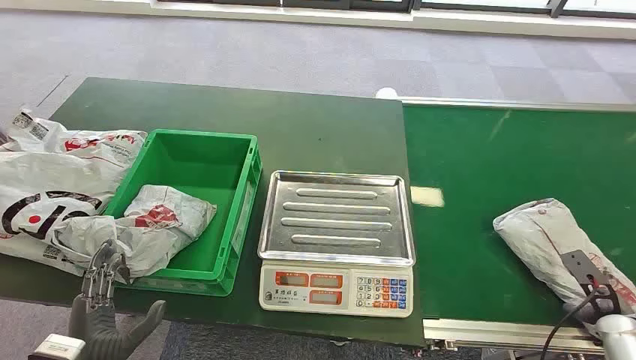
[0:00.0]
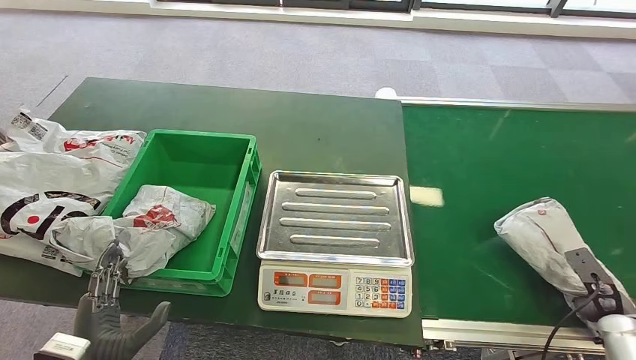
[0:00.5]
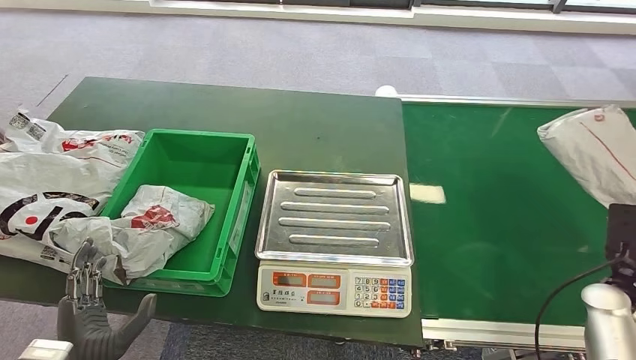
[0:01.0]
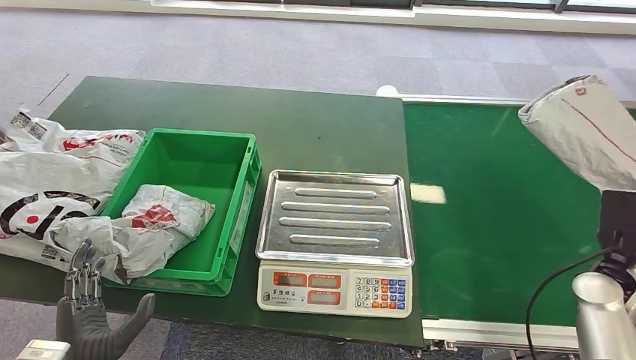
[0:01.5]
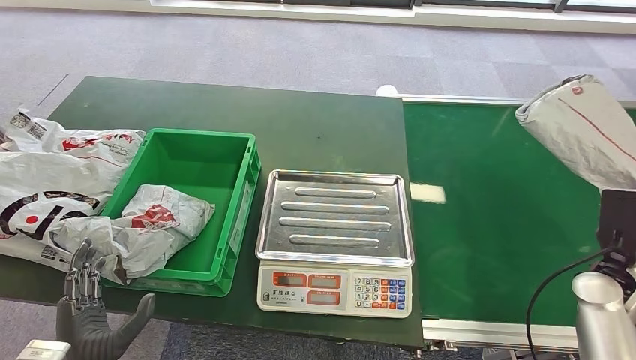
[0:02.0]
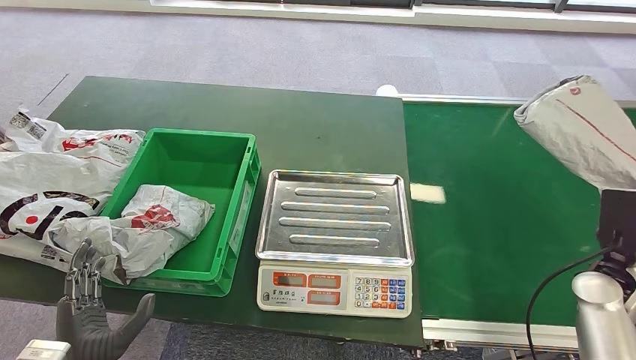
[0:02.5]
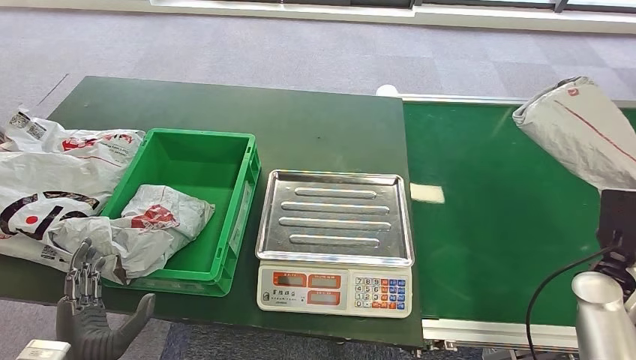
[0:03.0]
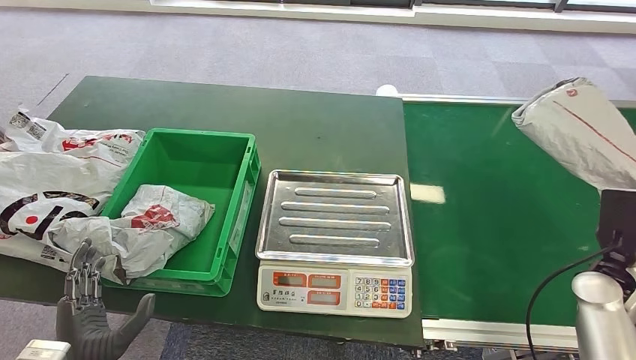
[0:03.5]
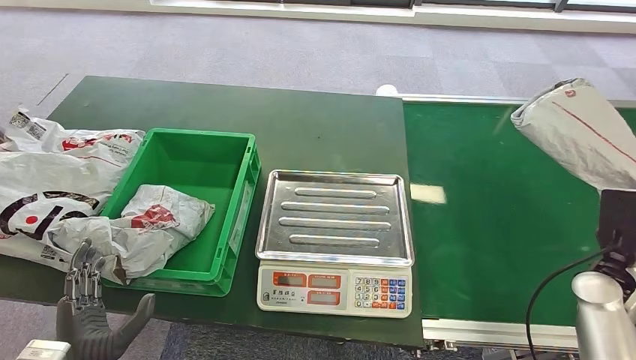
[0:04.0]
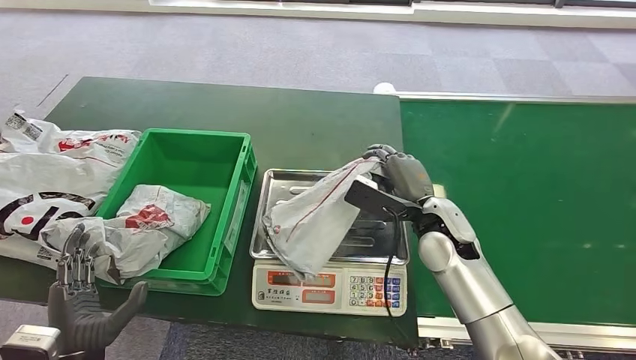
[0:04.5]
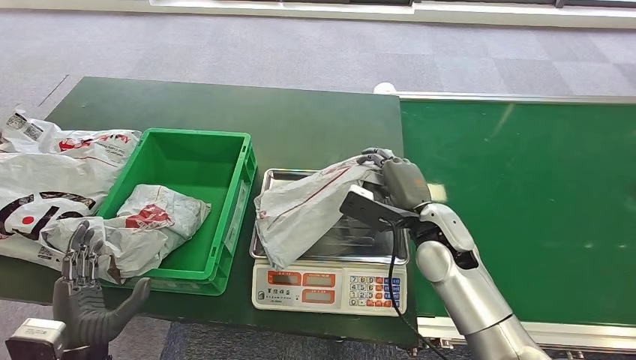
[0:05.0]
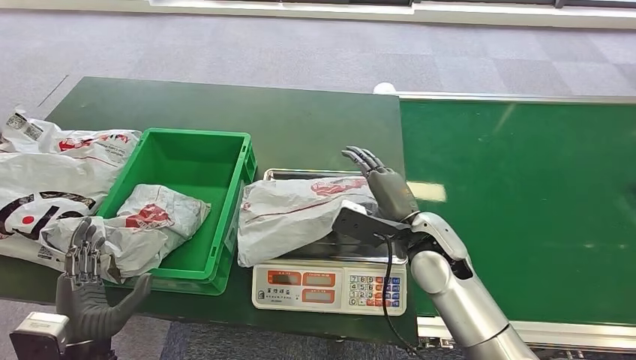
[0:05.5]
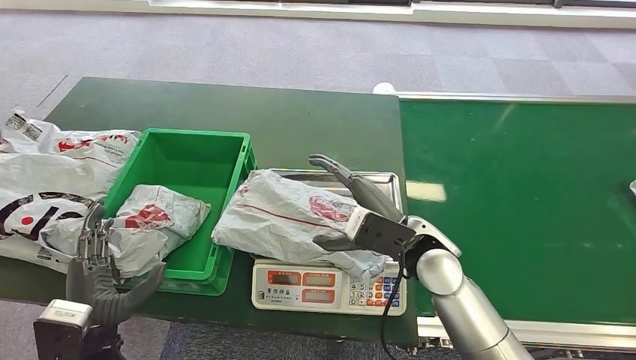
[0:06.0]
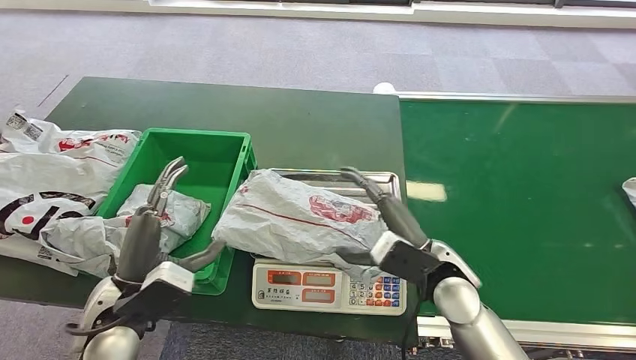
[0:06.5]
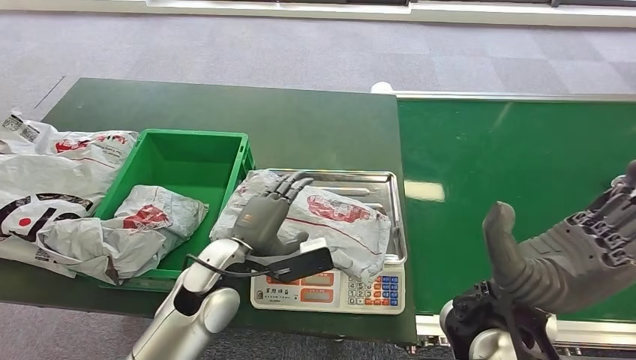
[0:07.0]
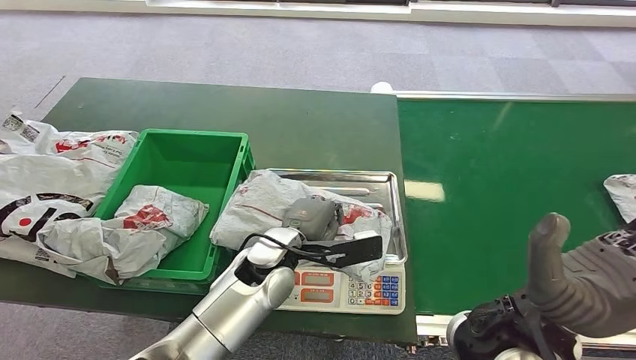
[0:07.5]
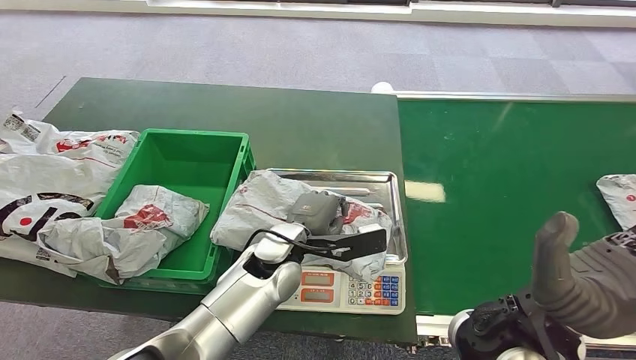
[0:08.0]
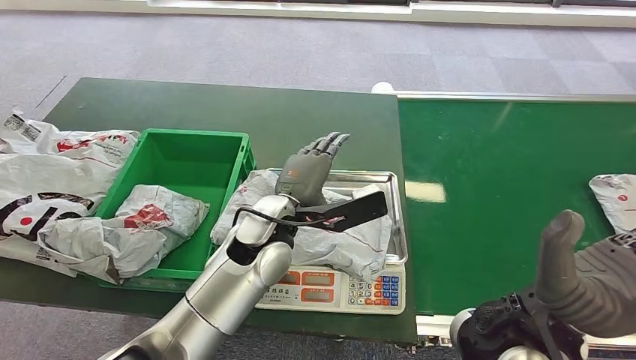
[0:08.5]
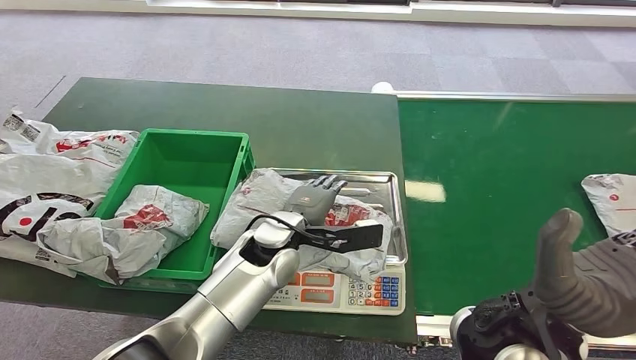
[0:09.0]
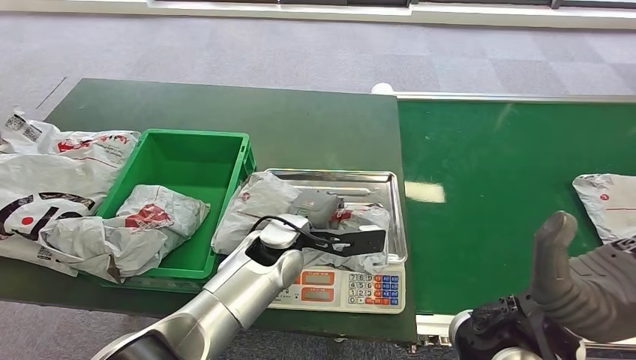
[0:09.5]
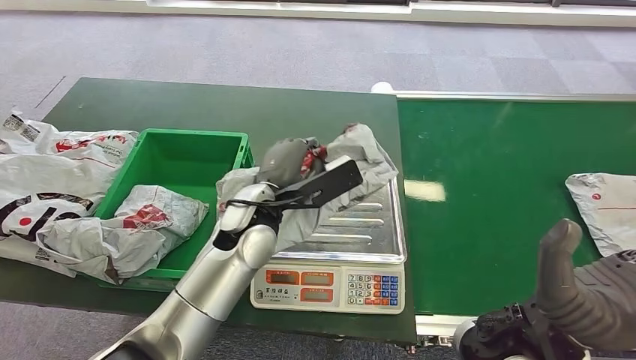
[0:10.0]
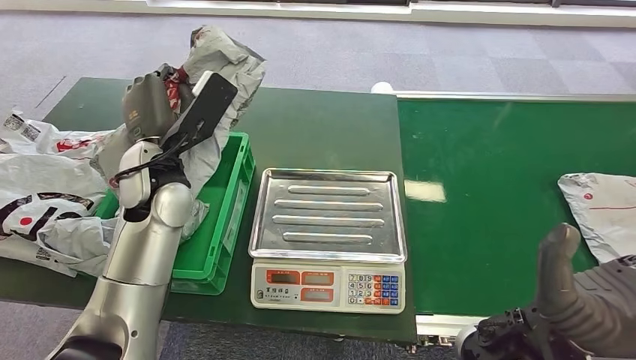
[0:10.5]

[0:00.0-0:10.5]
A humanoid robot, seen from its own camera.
Step, 0:00.0 to 0:01.0: Pick up the package from the conveyor belt.
Step, 0:01.5 to 0:06.0: Place the package onto the inbound machine.
Step, 0:06.5 to 0:10.5: Pick up the package from the inbound machine.
0:02.0 to 0:04.0: Neither hand changes place.
